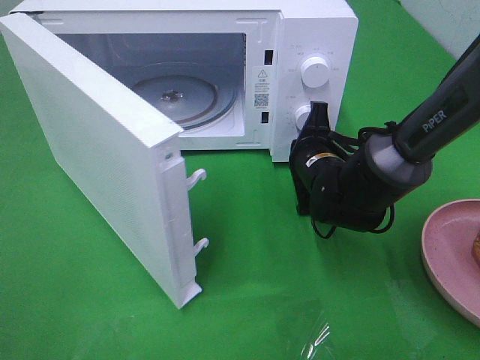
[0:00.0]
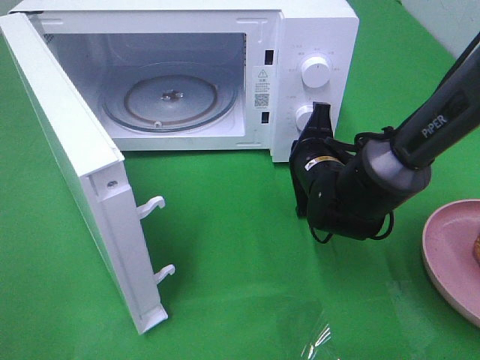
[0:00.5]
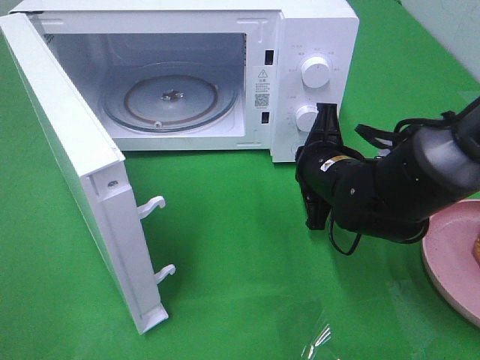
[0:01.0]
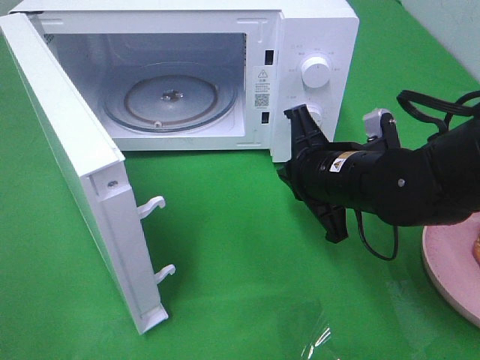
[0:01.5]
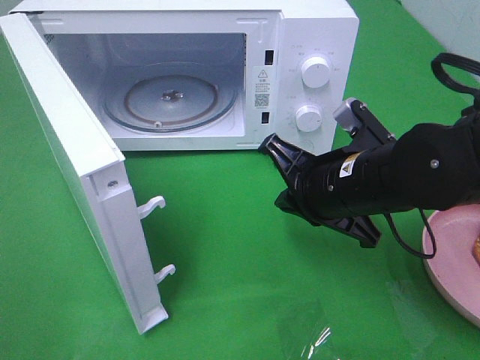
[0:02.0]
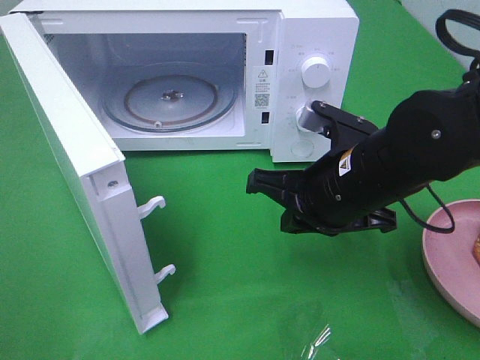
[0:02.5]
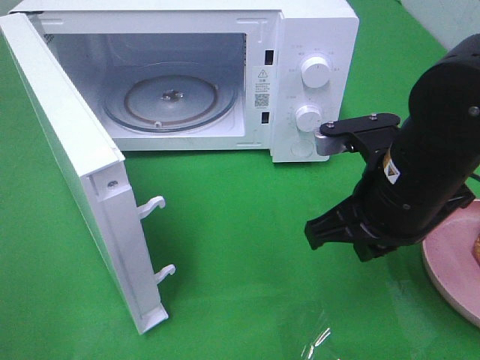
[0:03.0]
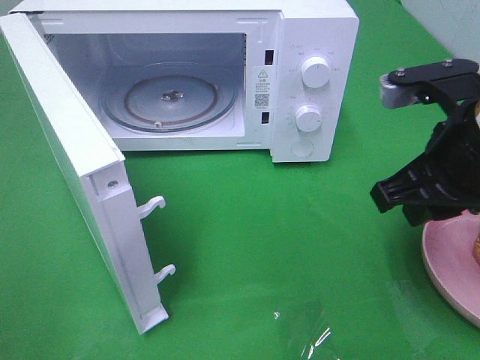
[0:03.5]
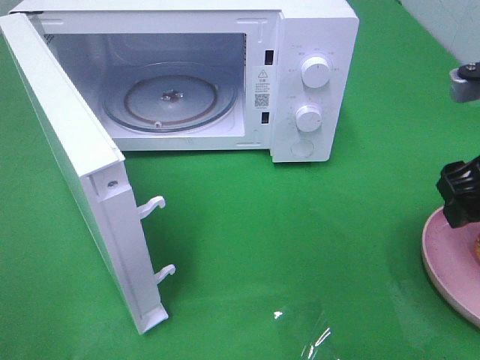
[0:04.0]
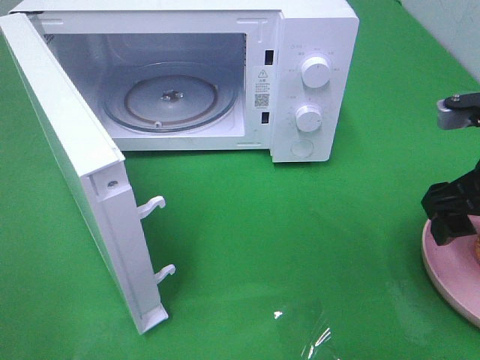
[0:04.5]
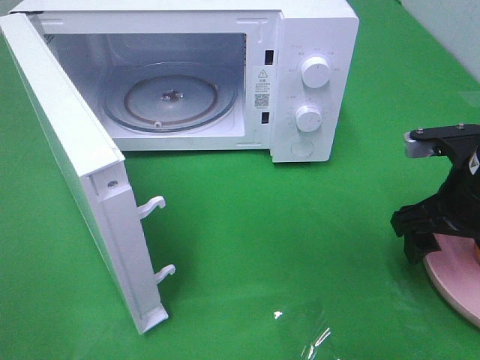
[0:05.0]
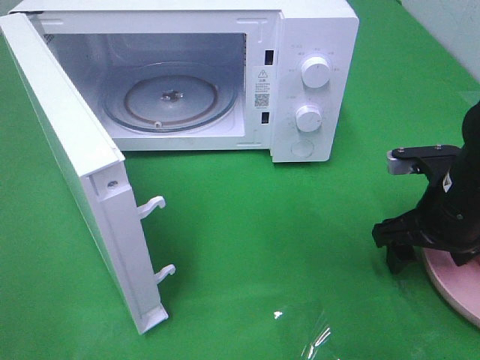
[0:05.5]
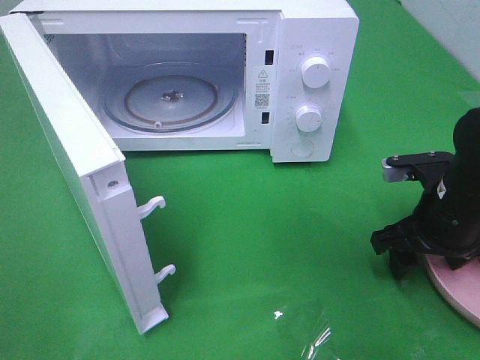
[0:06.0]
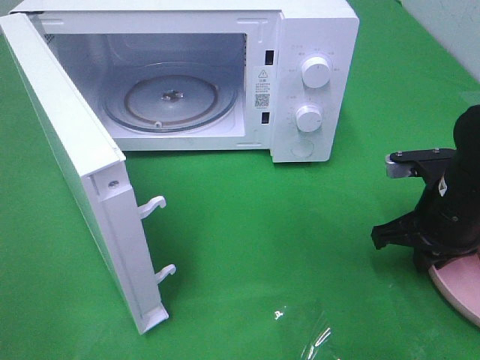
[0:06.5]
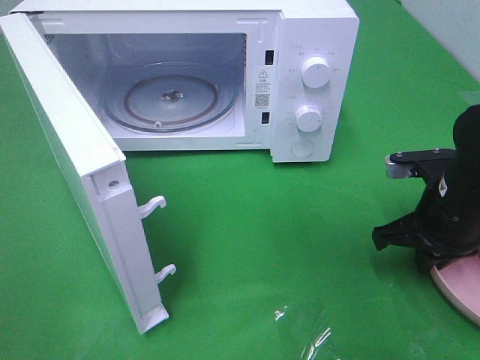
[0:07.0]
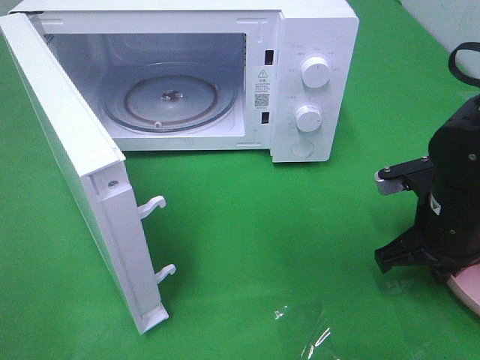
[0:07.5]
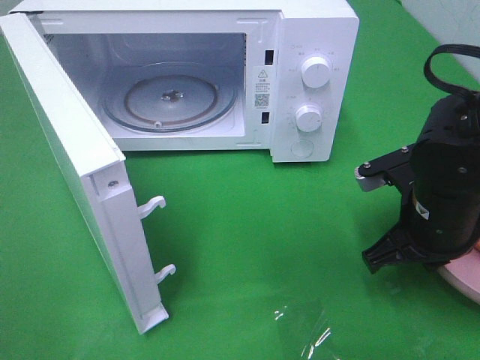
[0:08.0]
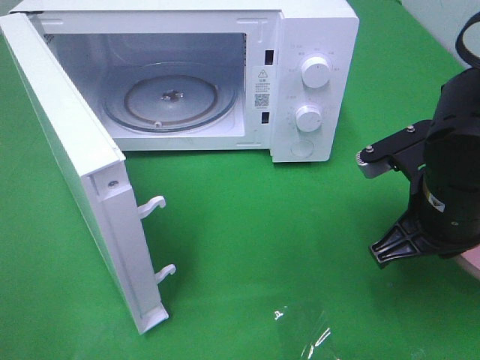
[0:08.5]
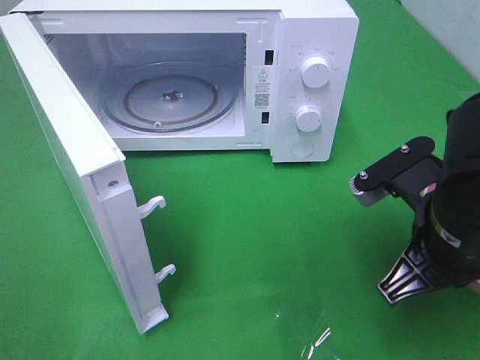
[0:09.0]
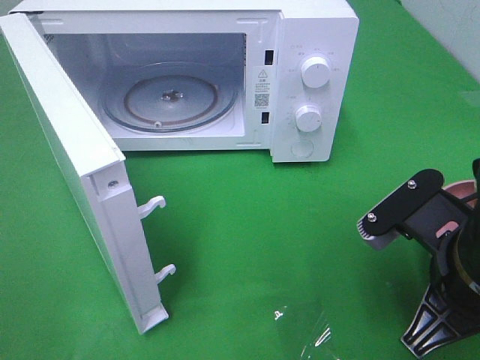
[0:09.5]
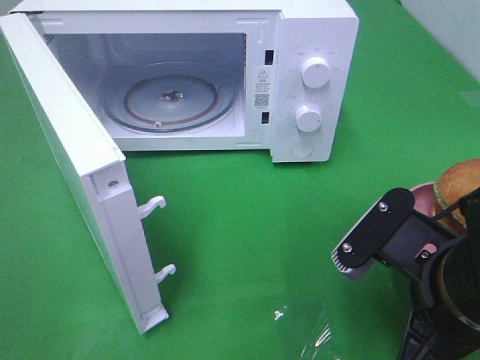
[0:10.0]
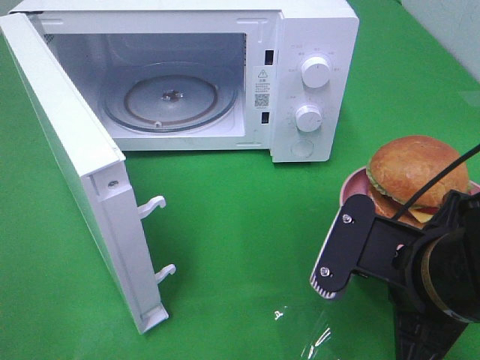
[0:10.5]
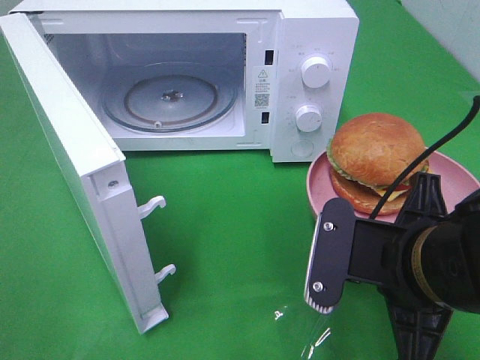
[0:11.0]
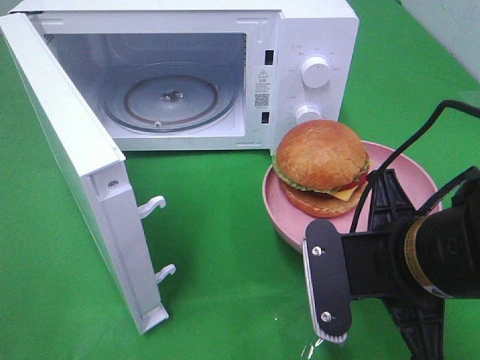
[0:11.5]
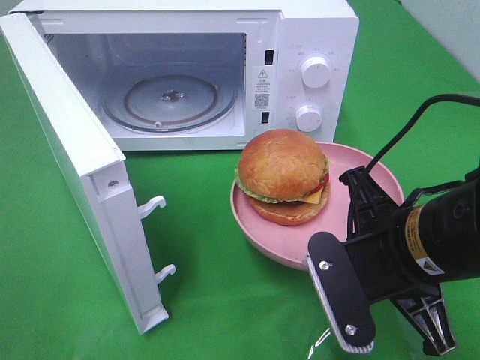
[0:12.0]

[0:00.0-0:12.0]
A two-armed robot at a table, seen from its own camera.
Task of the whole recording: Heat the burger.
Step, 1.5 to 7.5 s: Right hand: grab the plate with the hamburger.
0.0 to 2.0 s: The right gripper is displaced backward and upward by roughly 15 cm.
2.0 to 4.0 s: The right gripper heads to the right and upward, covering approximately 15 cm, and opens its fingers.
4.0 to 6.0 s: The right gripper goes about 15 cm downward.
6.0 to 8.0 s: The right gripper changes place by approximately 5 cm, and closes its fingers.
8.0 to 10.0 s: The right gripper shifts roughly 10 cm backward.

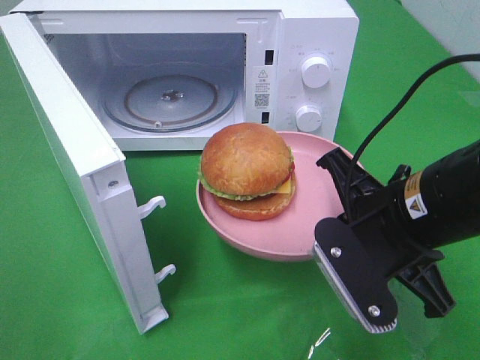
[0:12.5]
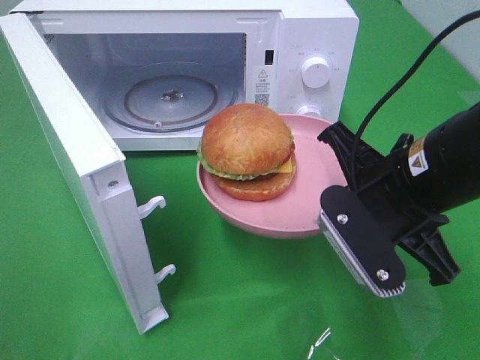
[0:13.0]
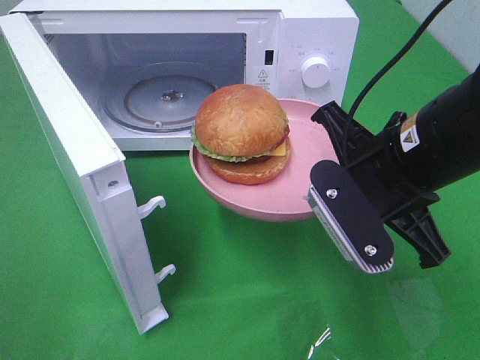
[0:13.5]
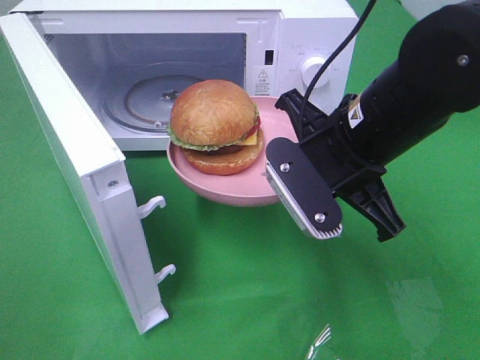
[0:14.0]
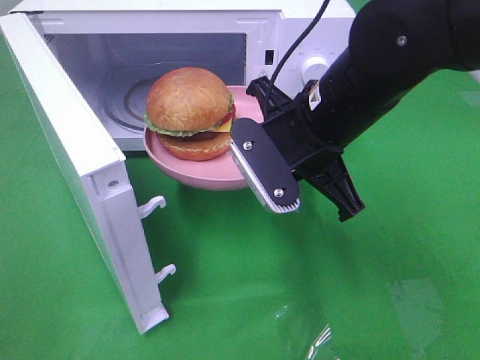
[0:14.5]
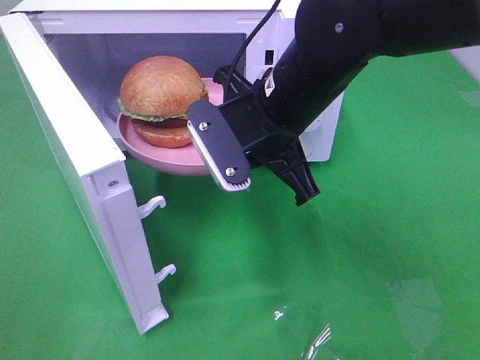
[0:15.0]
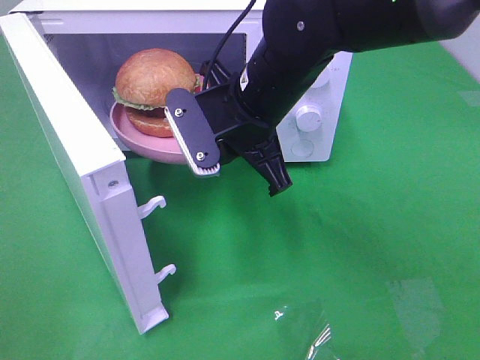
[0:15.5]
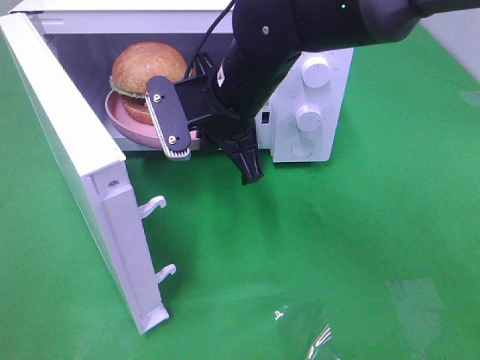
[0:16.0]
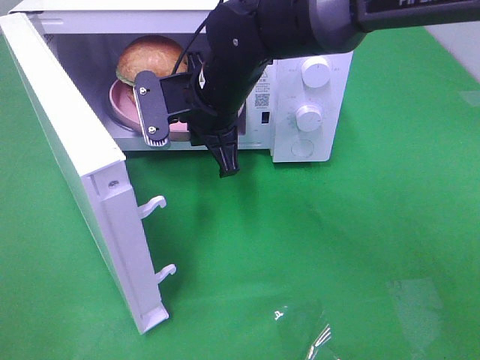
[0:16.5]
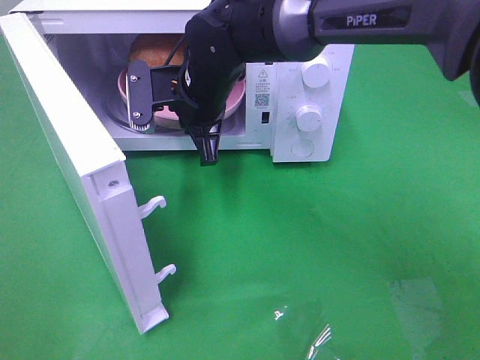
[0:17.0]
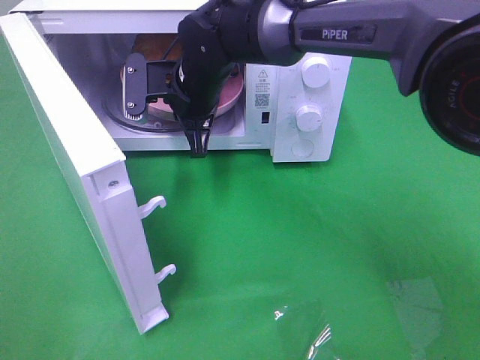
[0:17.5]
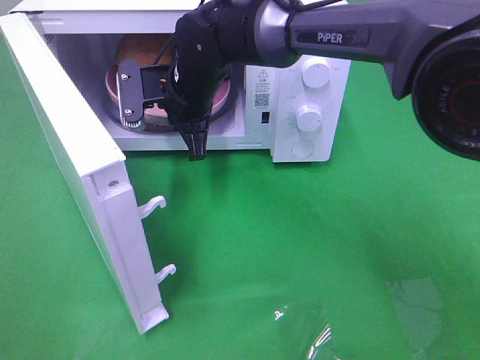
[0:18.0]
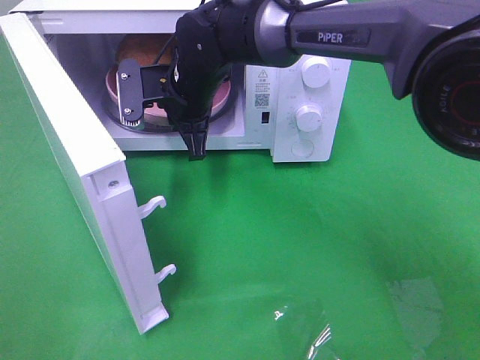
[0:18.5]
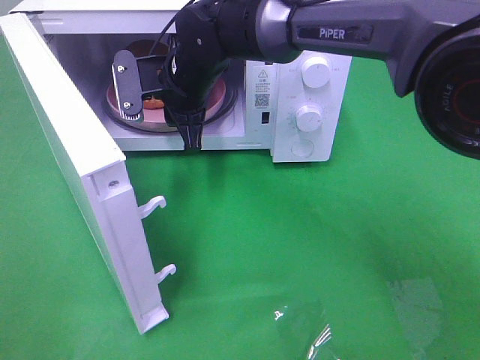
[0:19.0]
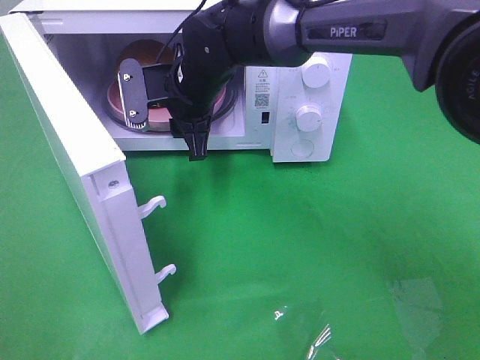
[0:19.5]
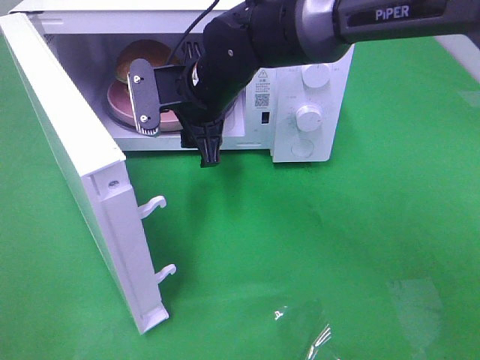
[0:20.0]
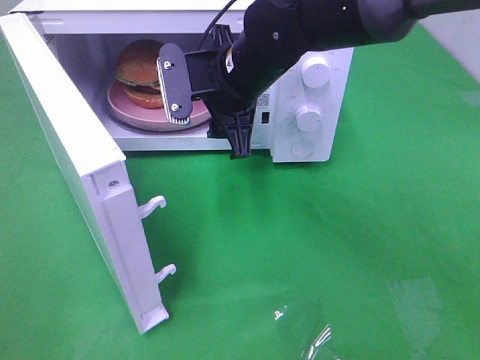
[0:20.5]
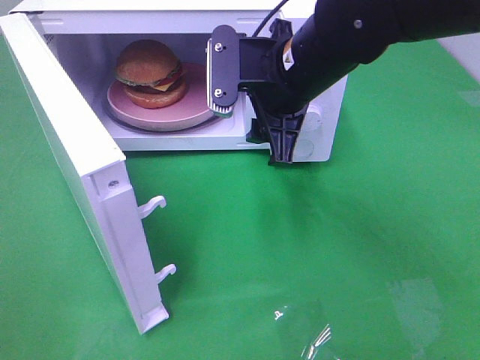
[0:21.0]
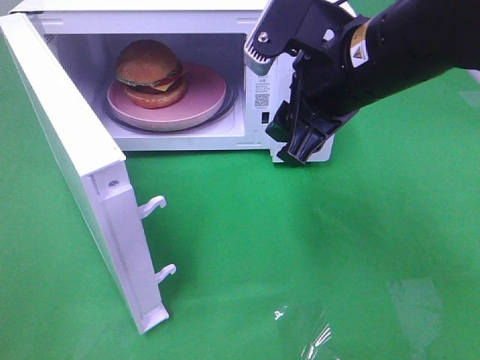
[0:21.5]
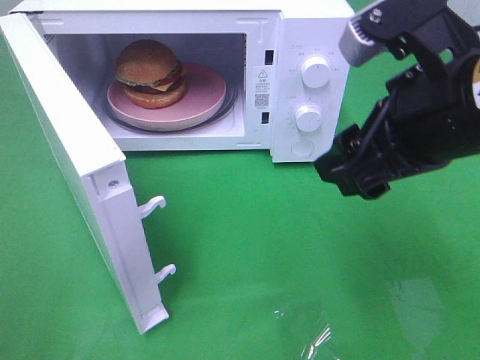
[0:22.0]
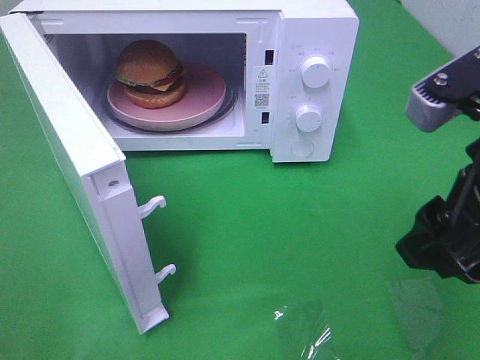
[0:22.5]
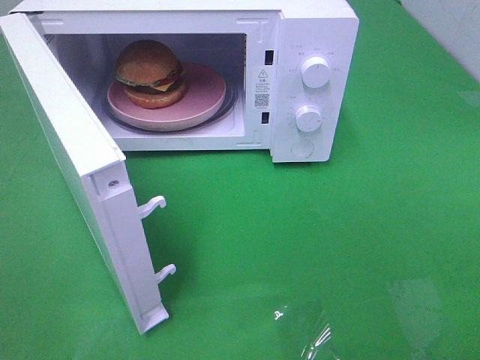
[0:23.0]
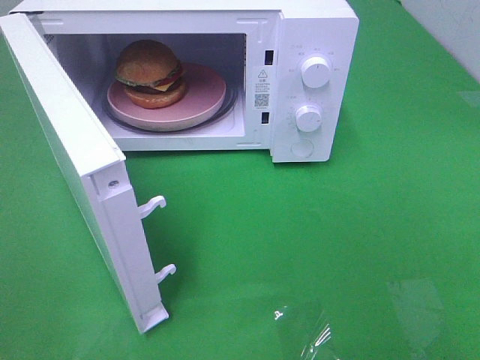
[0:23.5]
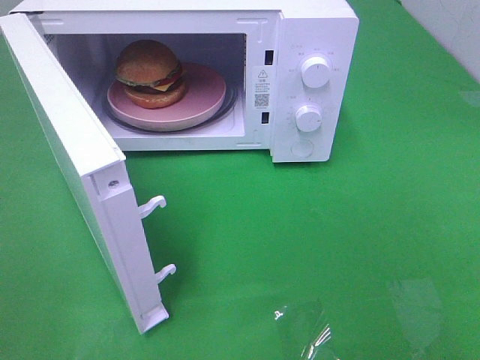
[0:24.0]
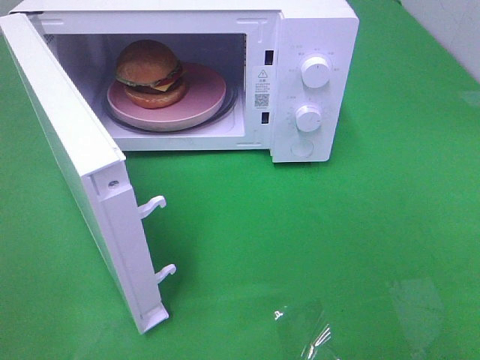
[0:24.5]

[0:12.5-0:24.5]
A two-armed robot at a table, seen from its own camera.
Task of the whole recording: Heat the burger.
Step, 12.5 to 19.5 s: Right hand: place the plate in the microwave.
12.5 to 14.5 s: The right gripper goes about 10 cm forward and to the left.
14.5 to 16.5 s: The right gripper heads to the left and forward, covering about 15 cm.
16.5 to 18.5 s: The right gripper shifts by roughly 5 cm.
18.5 to 20.5 s: The right gripper heads to the right, covering about 5 cm, and opens.
20.5 to 22.5 s: The right gripper travels backward and to the right by roughly 30 cm.
22.5 to 24.5 s: The right gripper shifts about 20 cm backward and to the right.

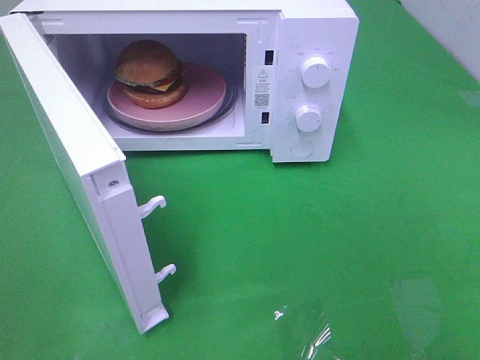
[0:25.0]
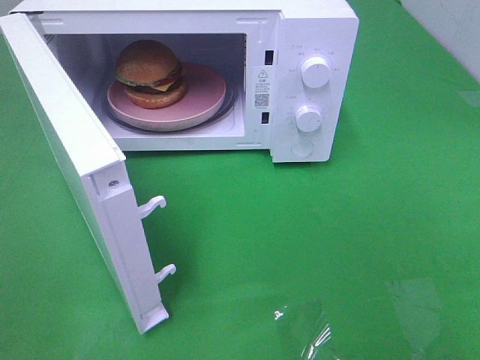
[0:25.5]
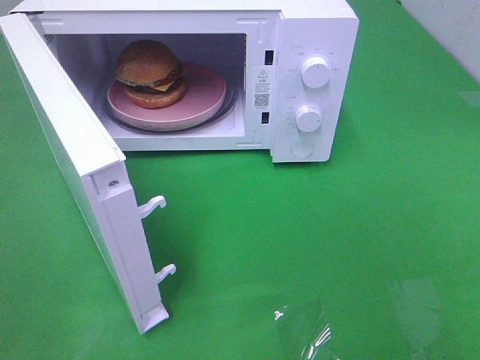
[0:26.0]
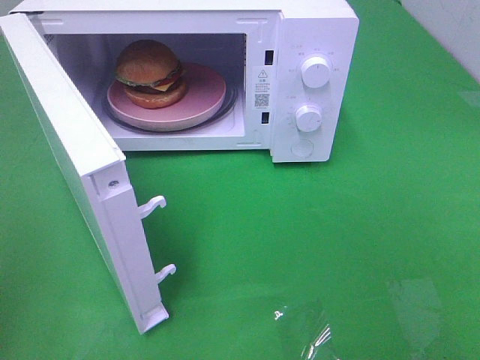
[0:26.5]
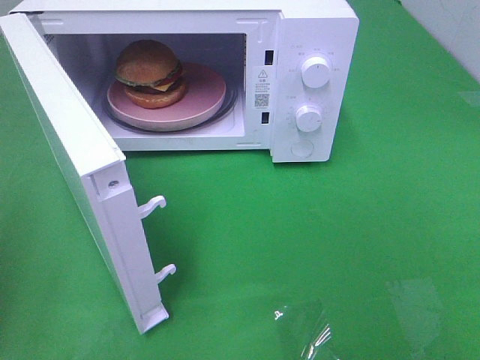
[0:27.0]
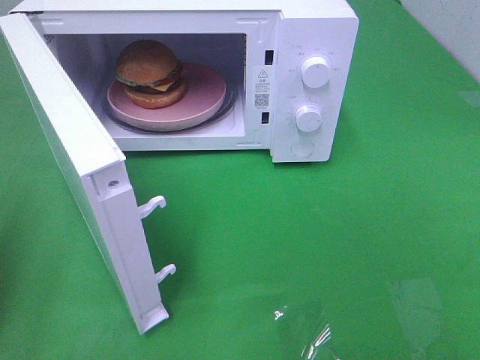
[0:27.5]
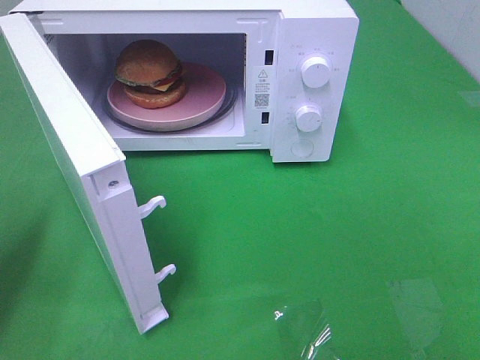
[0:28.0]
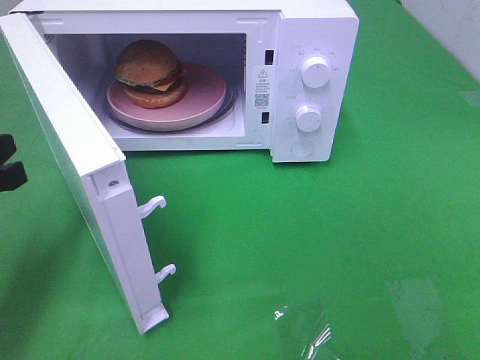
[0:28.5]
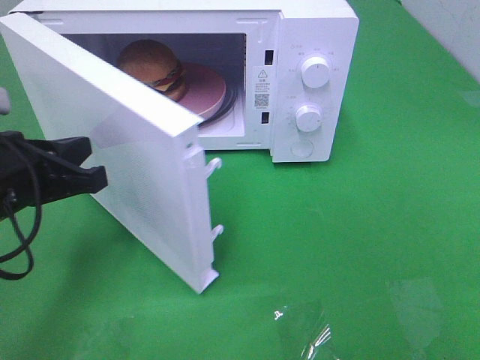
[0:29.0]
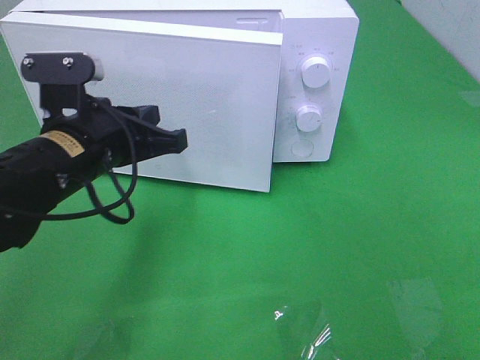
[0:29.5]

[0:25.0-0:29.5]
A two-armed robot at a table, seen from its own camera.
Task of the whole recording: Heat the burger.
27.0 to 29.5 s: The left gripper heads to the right, forward and downward, covering approximately 25 cm.
